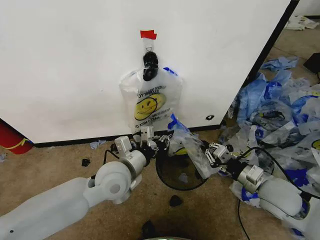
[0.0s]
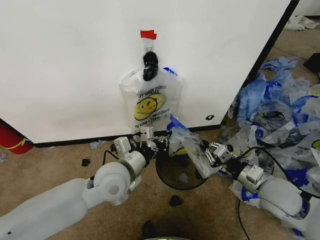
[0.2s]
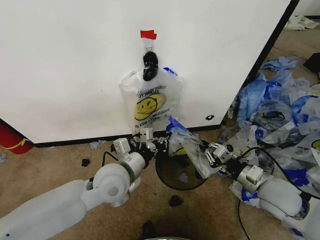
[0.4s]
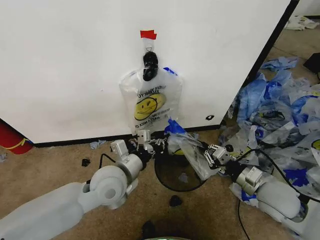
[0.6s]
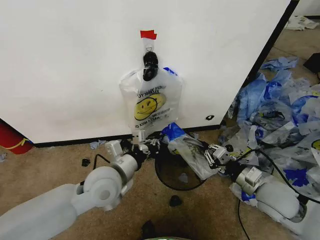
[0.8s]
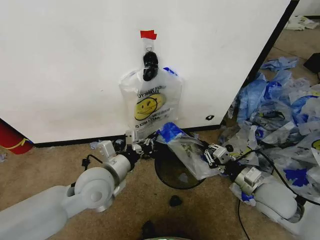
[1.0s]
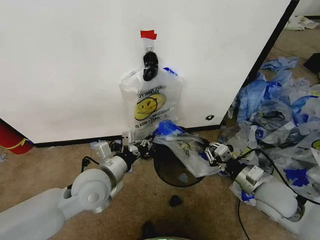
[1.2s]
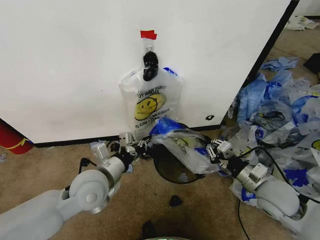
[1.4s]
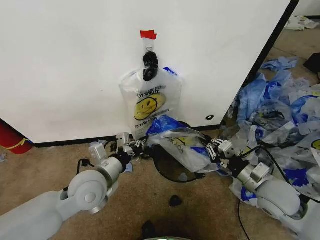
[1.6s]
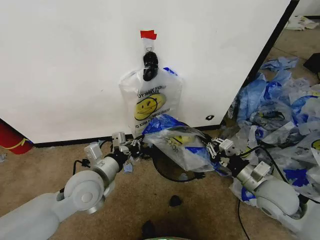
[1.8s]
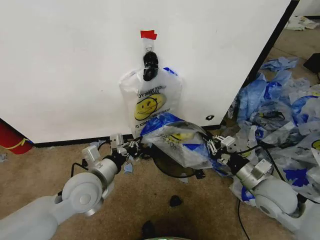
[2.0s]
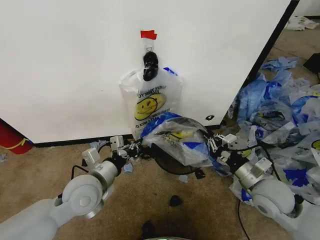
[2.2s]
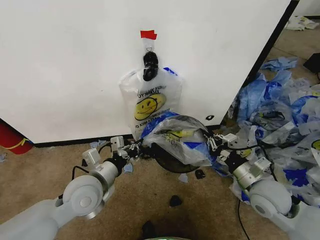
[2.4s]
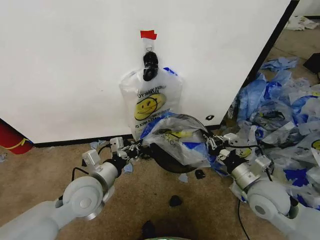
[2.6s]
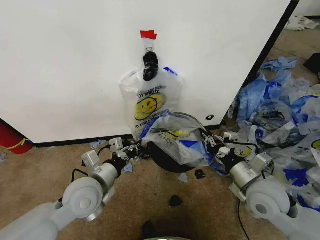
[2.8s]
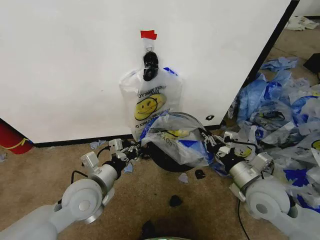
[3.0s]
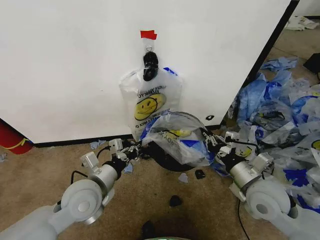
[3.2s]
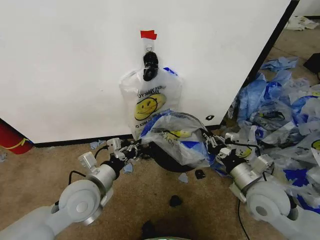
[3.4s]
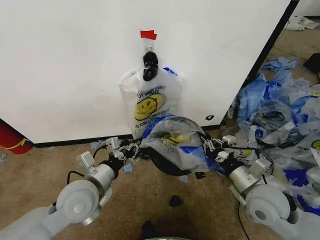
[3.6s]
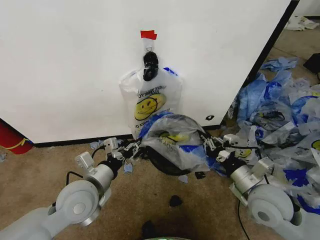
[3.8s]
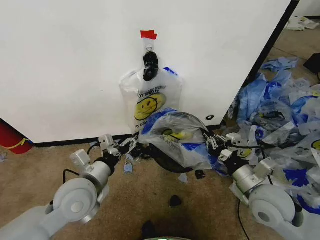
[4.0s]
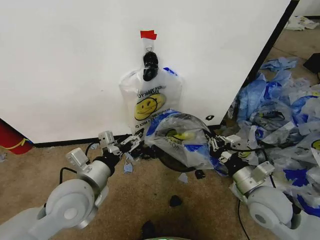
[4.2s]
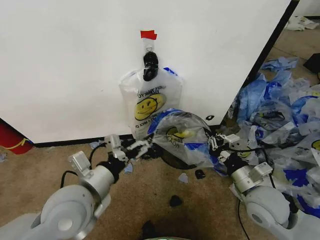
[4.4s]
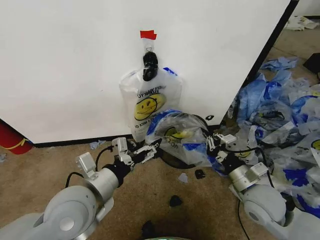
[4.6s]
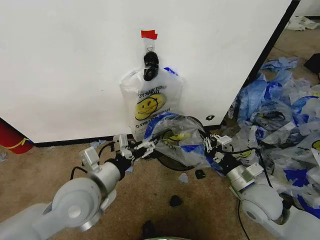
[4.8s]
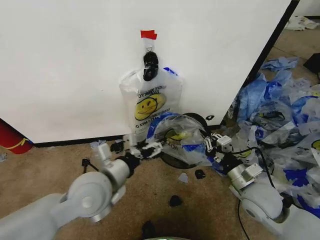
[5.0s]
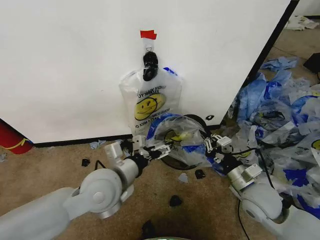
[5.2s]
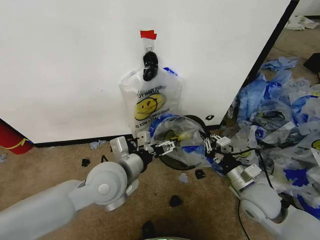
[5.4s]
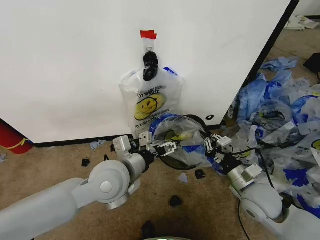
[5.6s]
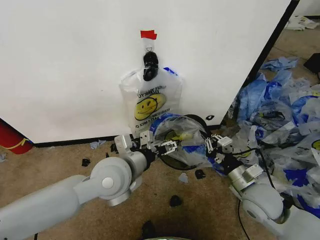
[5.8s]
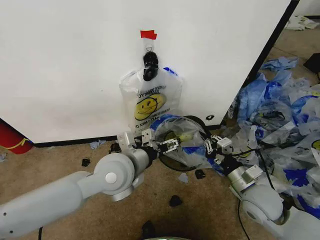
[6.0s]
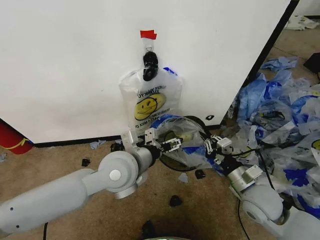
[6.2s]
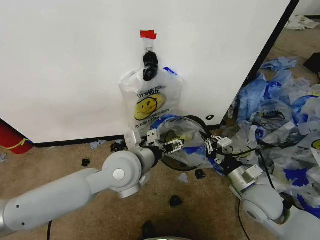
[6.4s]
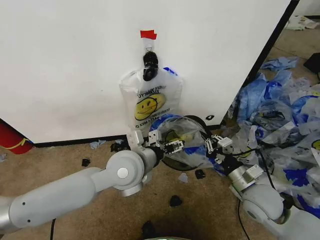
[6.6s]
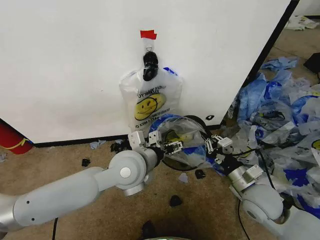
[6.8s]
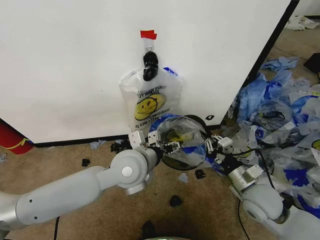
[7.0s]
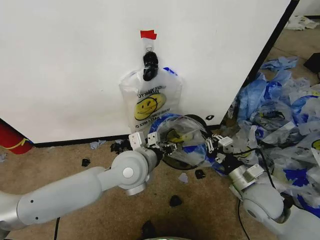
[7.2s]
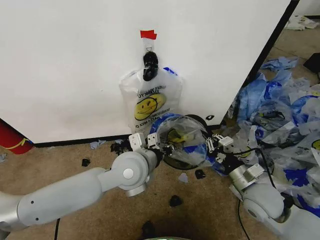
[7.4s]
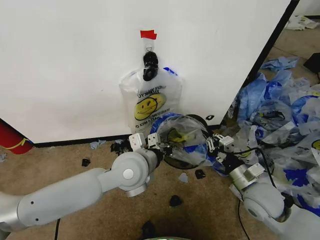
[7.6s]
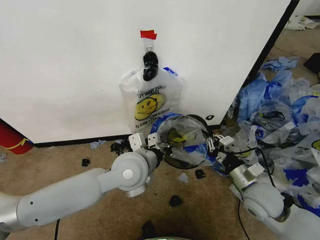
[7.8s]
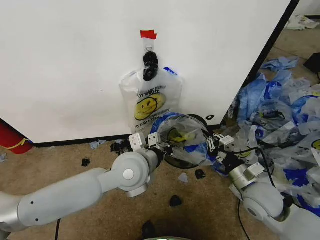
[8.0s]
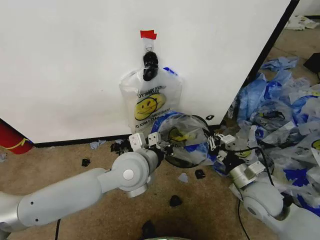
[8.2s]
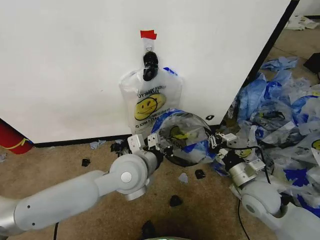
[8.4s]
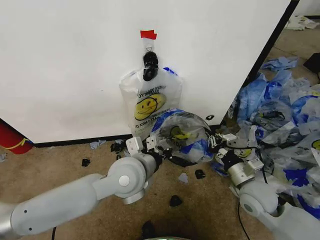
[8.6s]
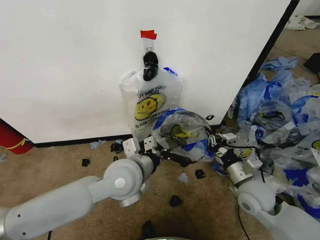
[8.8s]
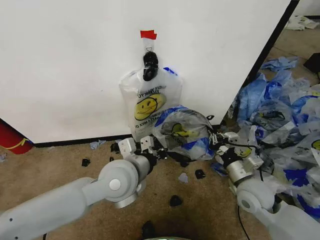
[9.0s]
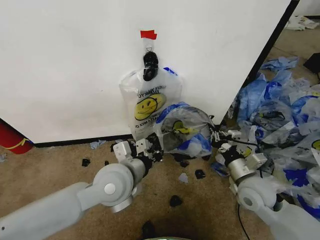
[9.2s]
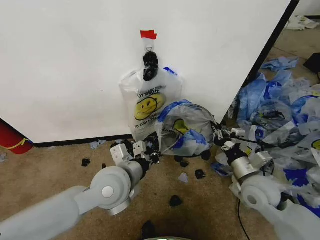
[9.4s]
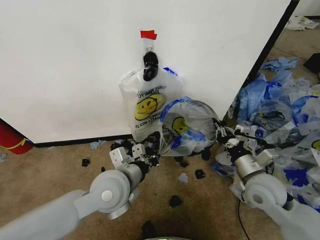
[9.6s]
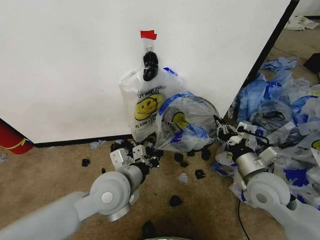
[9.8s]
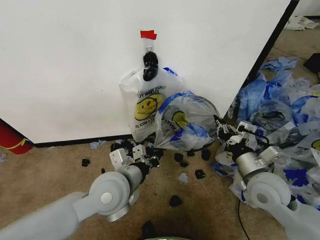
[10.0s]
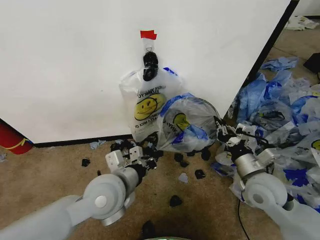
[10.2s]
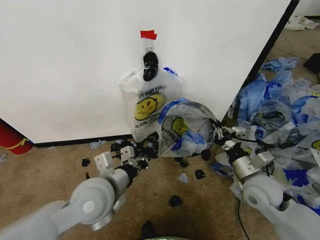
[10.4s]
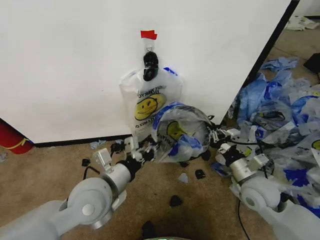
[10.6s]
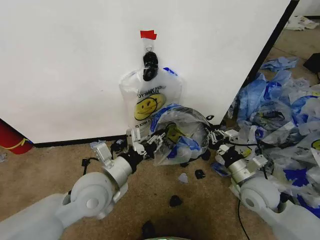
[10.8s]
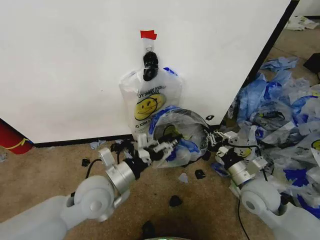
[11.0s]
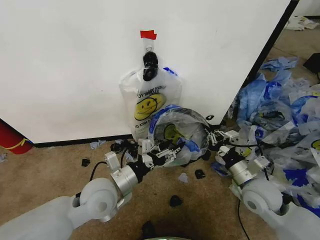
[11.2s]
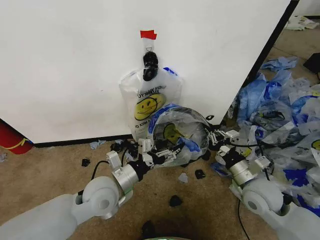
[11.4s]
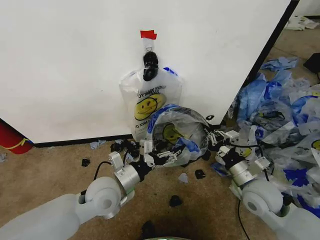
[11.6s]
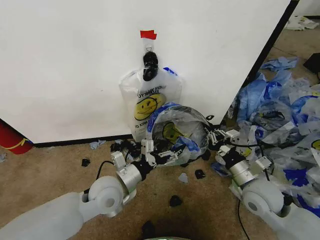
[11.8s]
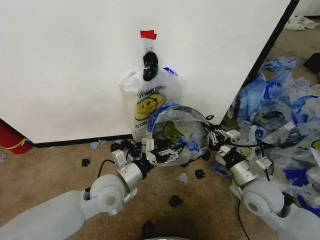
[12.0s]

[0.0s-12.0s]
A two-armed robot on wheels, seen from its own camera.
Task of the whole recording: Pick up the garbage bag from the wall and place it over the trash bin.
0.0s to 1.6s: The left gripper is displaced to the left by about 5 cm.
1.6s to 3.0s: The right gripper moves about 5 cm.
3.0s to 4.4s: The left gripper is displaced upward by about 5 cm, and opens its fingers.
4.4s to 6.0s: The left gripper is displaced to the right and forward by some 10 cm.
6.0s to 7.6s: The left gripper closes up.
7.6s to 9.0s: The grippers stay close to where they were, moving slightly.
9.0s to 10.4s: The left gripper travels to the left by approximately 5 cm.
10.4s to 12.0s: The left gripper moves downward, approximately 5 cm, and opens up.

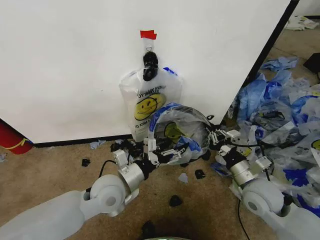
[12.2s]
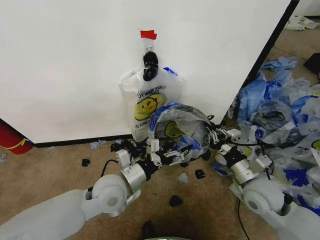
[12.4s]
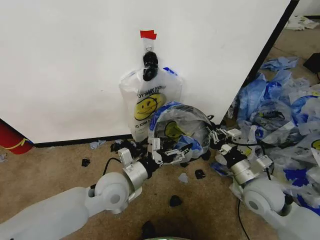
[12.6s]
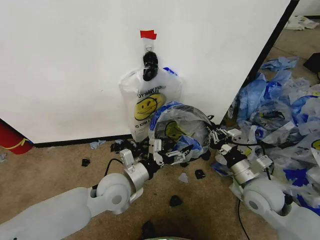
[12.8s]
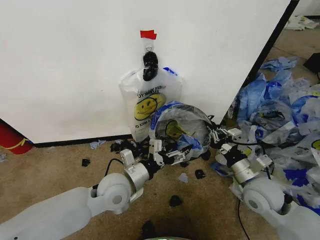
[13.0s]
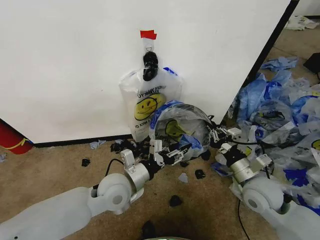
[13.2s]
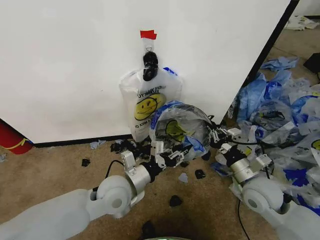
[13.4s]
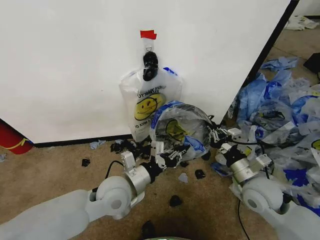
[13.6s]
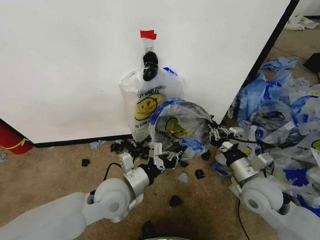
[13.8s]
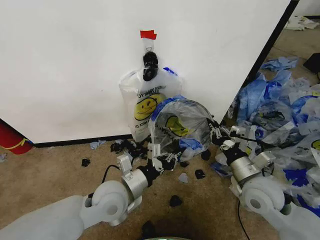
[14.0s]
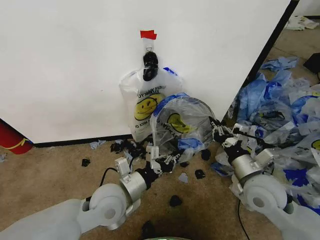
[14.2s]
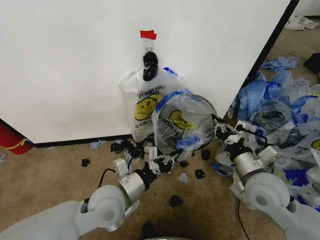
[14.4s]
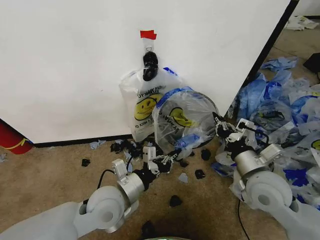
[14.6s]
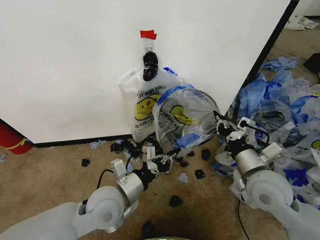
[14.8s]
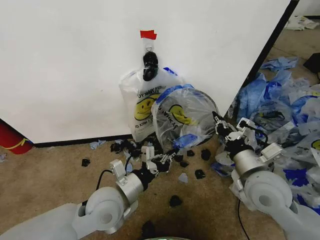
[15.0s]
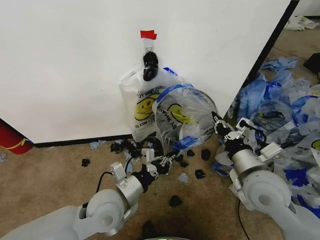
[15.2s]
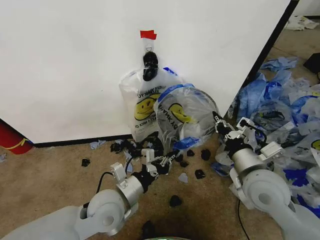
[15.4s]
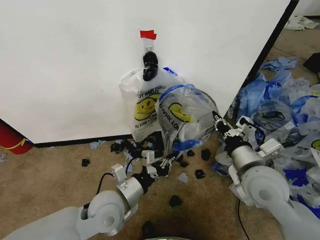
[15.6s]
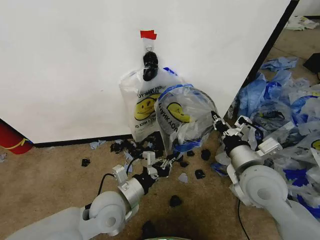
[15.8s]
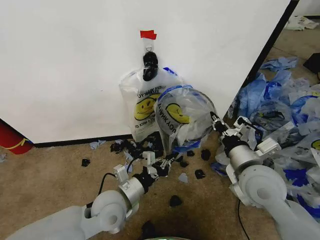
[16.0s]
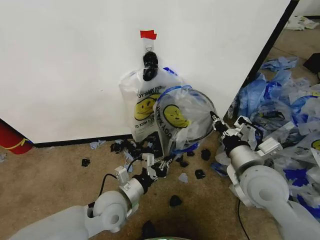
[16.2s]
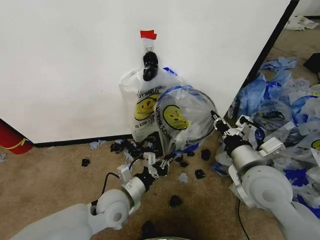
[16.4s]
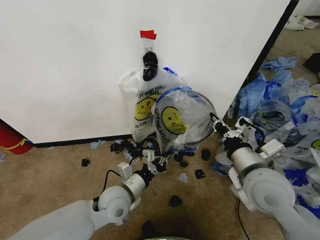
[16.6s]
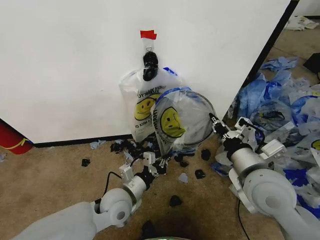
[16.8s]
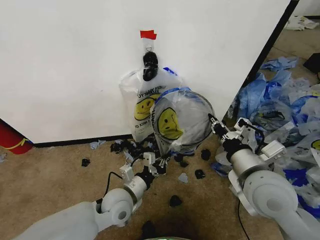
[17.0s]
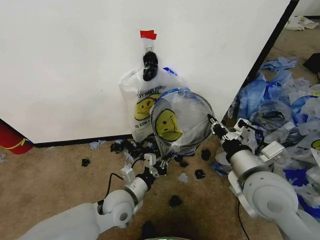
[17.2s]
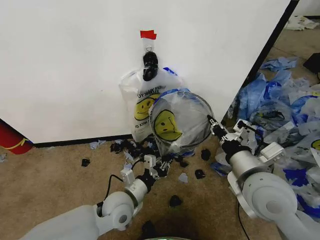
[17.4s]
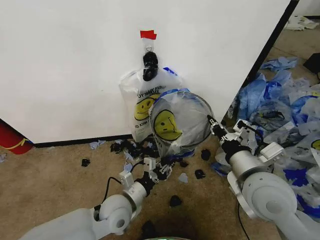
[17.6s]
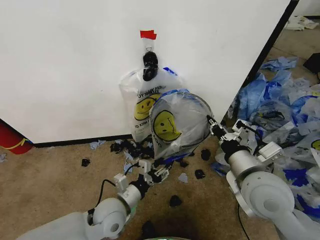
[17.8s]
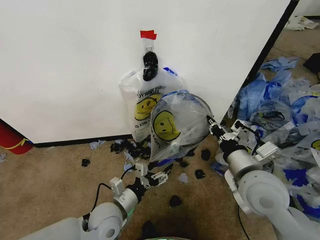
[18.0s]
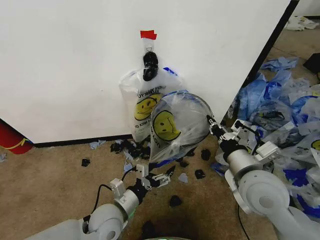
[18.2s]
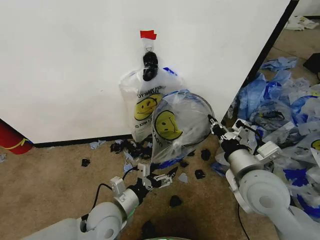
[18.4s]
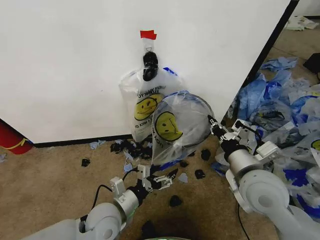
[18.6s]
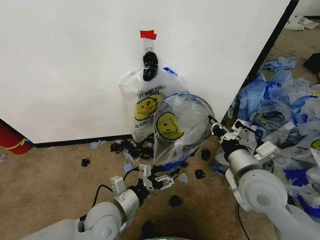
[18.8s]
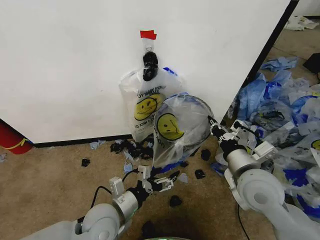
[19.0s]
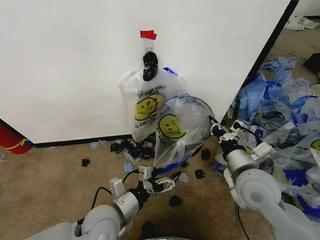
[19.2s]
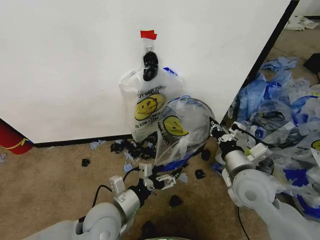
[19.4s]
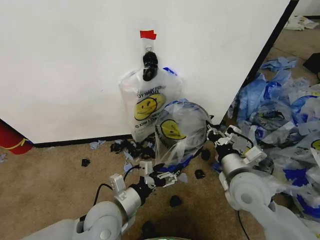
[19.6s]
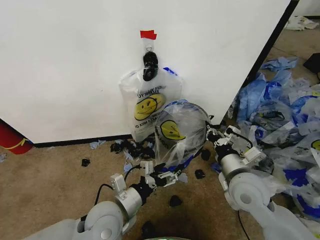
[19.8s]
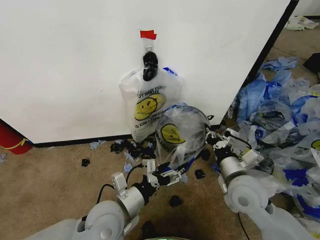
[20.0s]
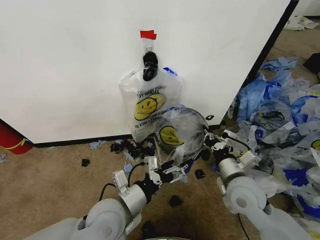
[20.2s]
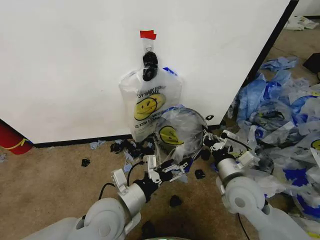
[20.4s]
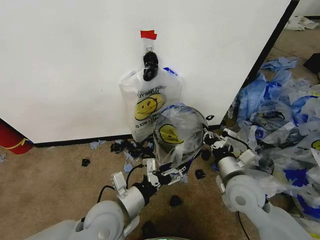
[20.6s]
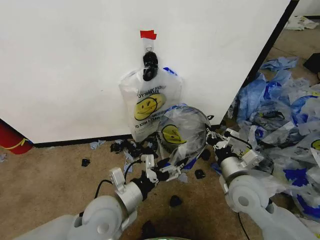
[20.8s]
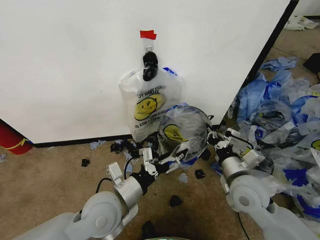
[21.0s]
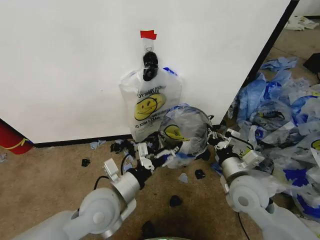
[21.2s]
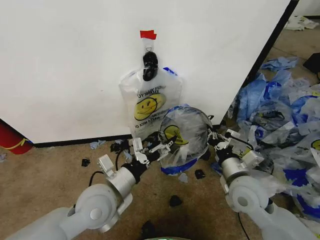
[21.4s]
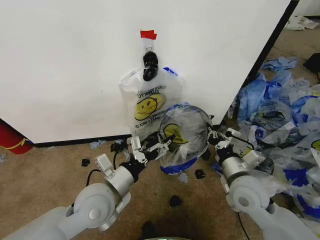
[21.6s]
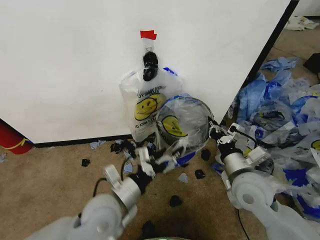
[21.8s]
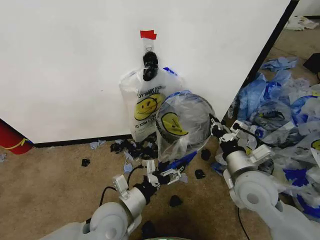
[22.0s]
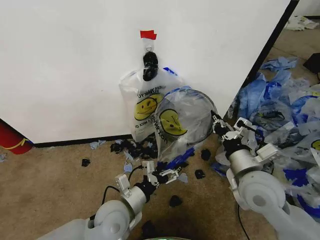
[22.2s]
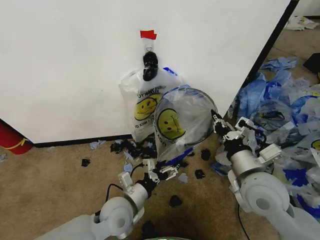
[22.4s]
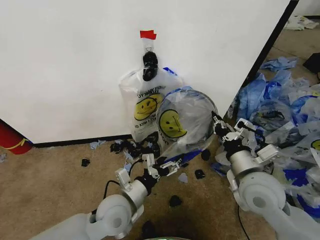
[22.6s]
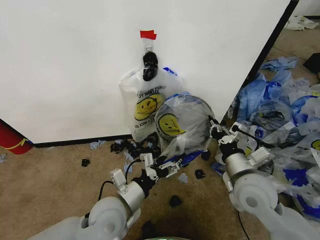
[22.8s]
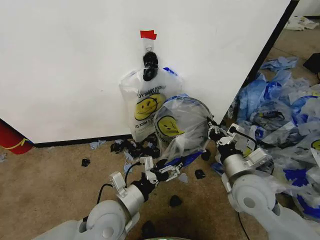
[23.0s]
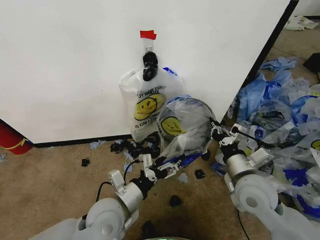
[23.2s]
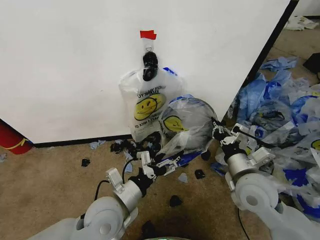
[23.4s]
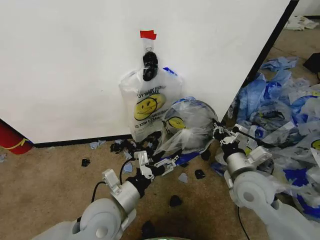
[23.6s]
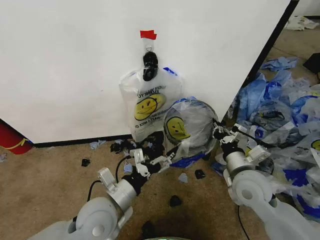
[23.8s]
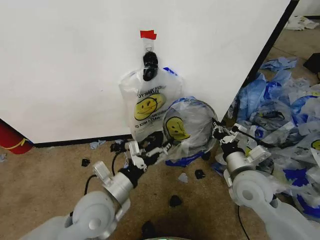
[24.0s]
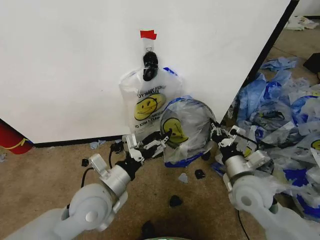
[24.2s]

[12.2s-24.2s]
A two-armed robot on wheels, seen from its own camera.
Task of the whole recording: Pick up the garbage bag from the wall and place it over the trash bin.
12.2s to 13.8s: The left gripper closes its fingers.
13.8s to 15.2s: The right gripper is displaced upward by approximately 5 cm.
15.2s to 16.6s: The left gripper travels downward by roughly 5 cm.
16.6s to 18.2s: The left gripper shifts by some 5 cm, and opens.
18.2s to 19.8s: The right gripper travels downward by some 5 cm, while the left gripper goes approximately 5 cm upward.
19.8s to 21.2s: The left gripper changes place by some 5 cm.
21.2s to 22.6s: The right gripper moves upward, approximately 5 cm; the left gripper goes approximately 5 cm downward.
22.6s to 24.2s: The left gripper heads upward, covering approximately 10 cm. Meanwhile the right gripper heads downward, covering about 5 cm.
